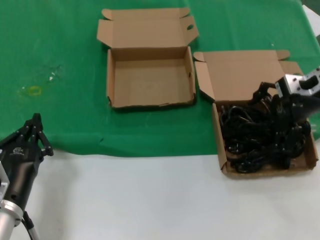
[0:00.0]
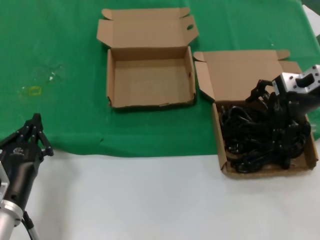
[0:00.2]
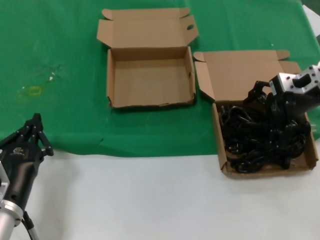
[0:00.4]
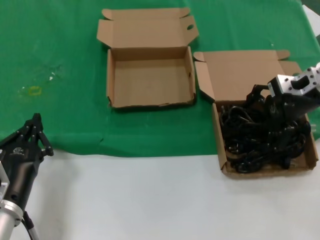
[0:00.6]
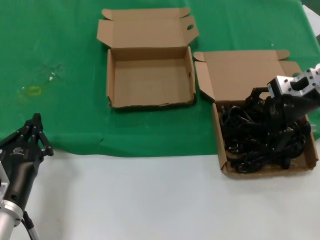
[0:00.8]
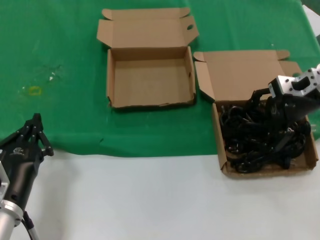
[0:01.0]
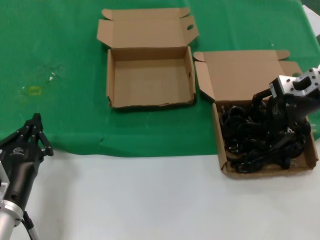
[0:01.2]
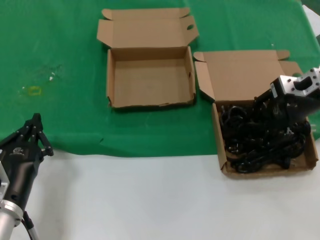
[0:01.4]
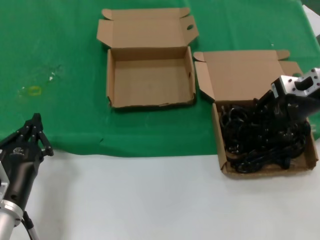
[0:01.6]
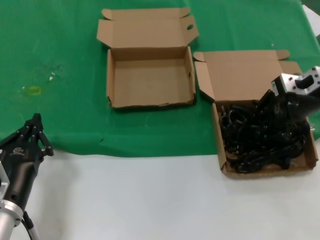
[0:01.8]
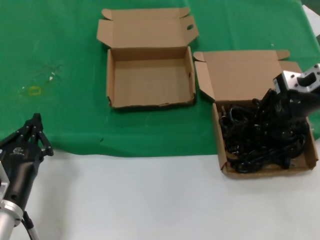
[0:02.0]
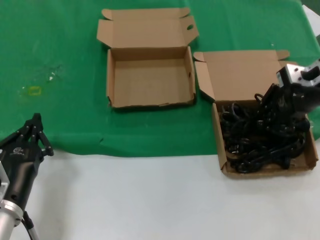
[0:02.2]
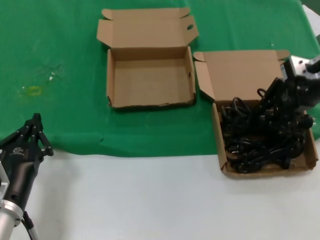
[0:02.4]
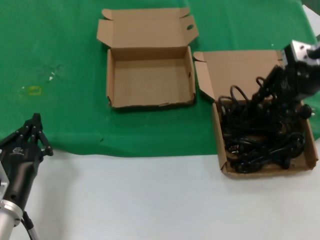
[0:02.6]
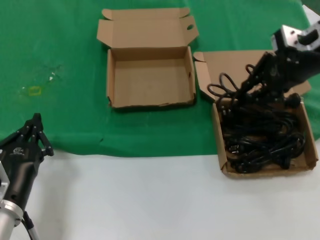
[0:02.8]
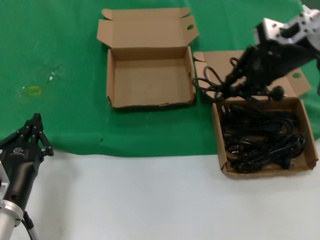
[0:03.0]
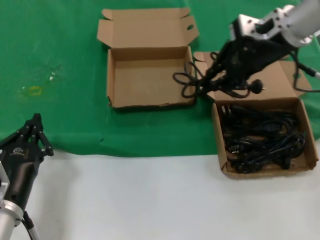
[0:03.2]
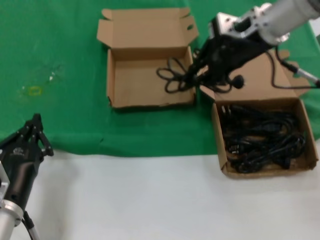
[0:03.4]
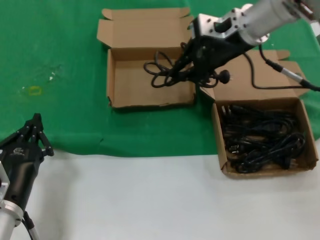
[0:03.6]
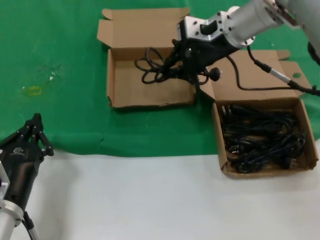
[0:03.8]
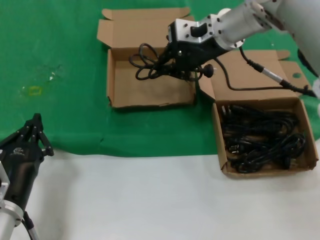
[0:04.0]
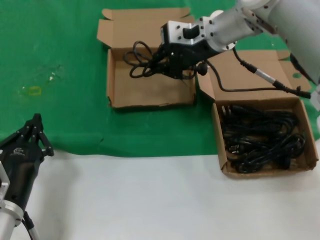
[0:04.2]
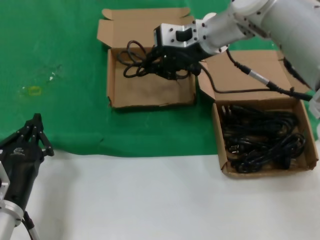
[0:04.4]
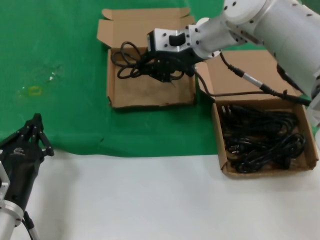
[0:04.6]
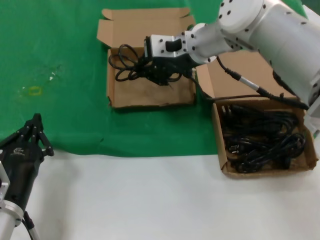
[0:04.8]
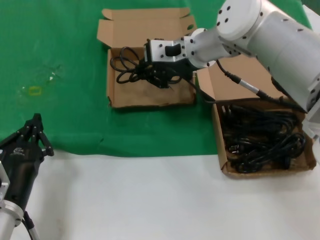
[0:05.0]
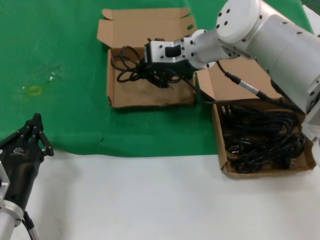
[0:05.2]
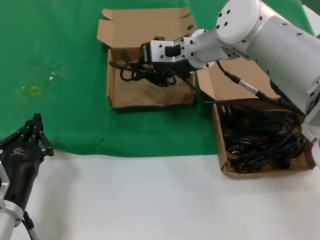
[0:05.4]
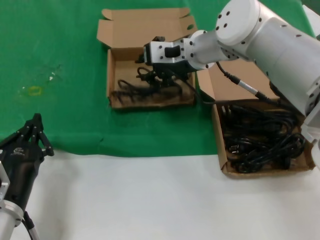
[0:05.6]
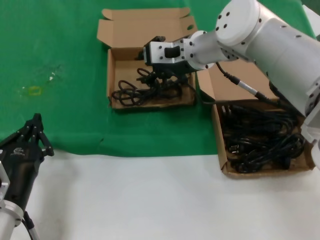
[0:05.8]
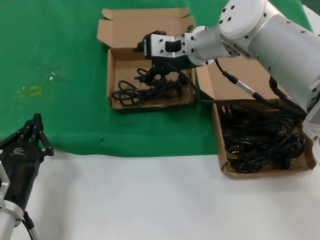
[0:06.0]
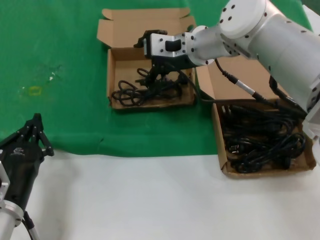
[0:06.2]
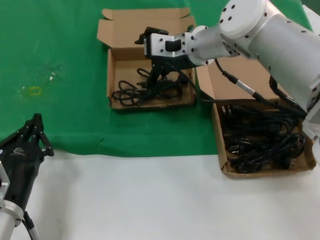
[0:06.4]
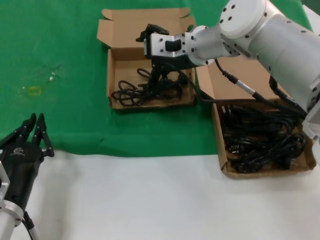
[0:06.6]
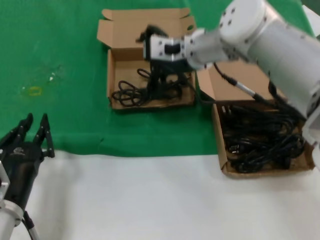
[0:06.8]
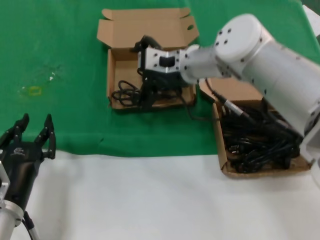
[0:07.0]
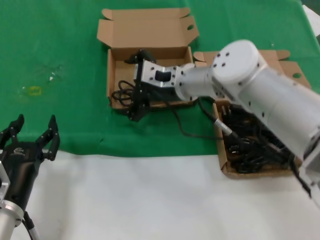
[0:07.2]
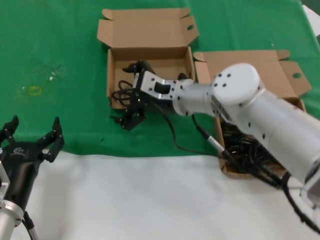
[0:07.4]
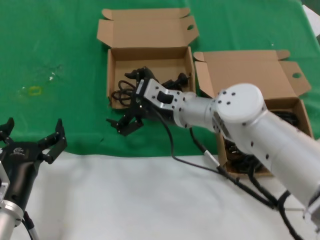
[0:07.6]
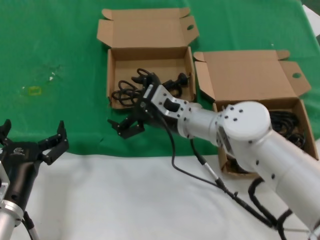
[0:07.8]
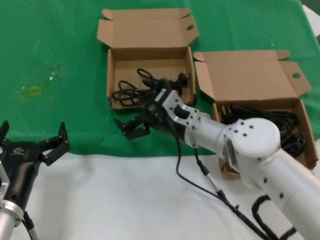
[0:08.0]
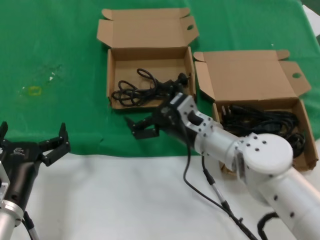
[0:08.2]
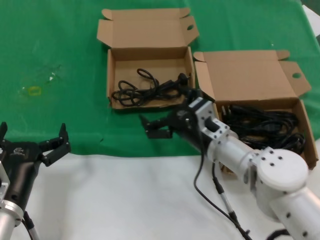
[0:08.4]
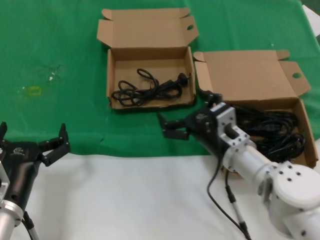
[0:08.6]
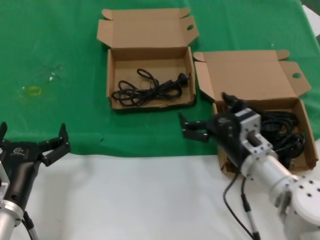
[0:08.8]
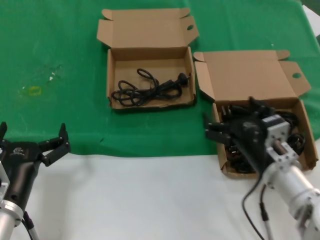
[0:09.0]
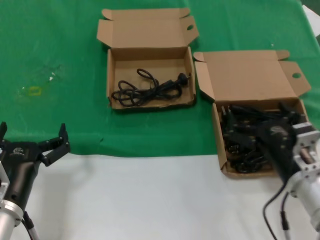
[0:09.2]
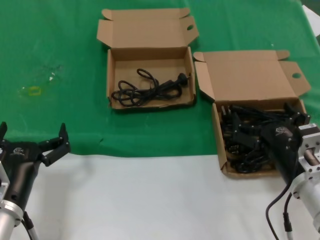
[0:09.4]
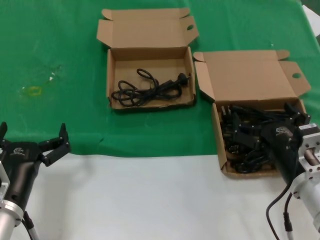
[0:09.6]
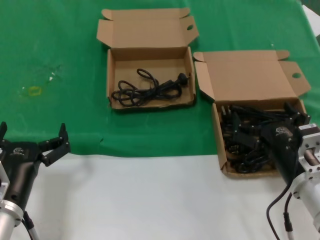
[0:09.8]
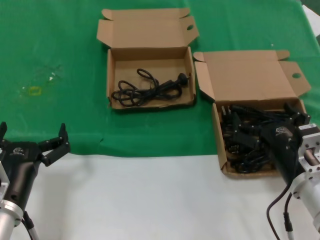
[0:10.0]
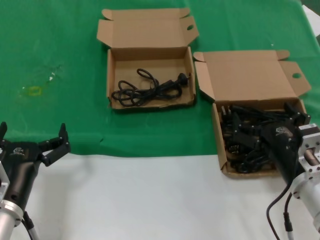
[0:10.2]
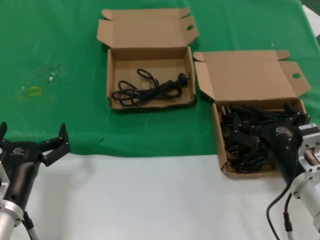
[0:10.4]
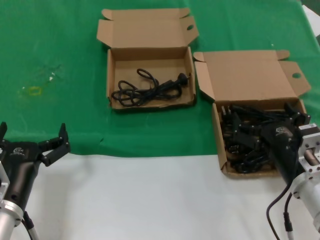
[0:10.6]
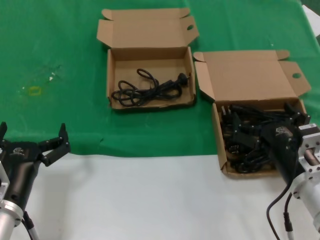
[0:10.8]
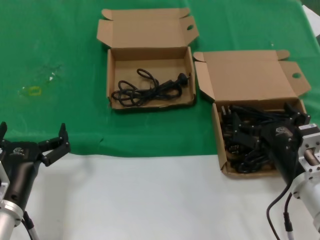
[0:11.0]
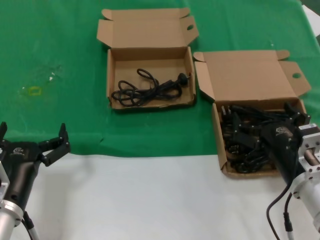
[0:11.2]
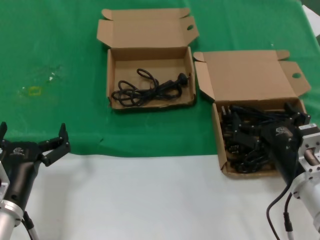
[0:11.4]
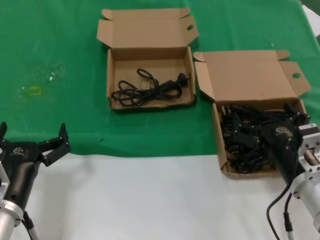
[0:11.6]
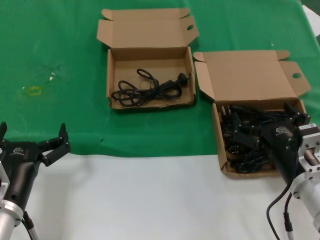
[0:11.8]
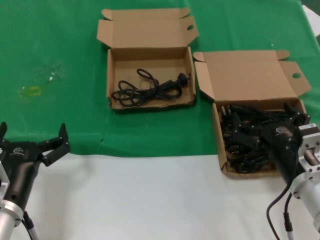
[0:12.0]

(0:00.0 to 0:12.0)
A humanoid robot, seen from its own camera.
Task of the whole recording: take the parts from the box containing them and put them into an empty box.
Step, 0:00.0 - 0:02.0: Grasp the data cable.
Step, 0:02.2 - 0:05.6: Place the data cable in the another box.
0:00.0 - 0:01.6: The hands make only small movements.
0:01.6 - 0:03.0: The right hand is displaced upward and to the left by approximately 10 cm.
0:03.0 - 0:04.4: The right hand is displaced to the left by approximately 15 cm.
0:04.4 - 0:06.0: The hands move only a little.
0:06.0 - 0:07.6: The right hand travels downward and backward by approximately 15 cm.
0:07.6 - 0:09.0: The right hand heads backward, to the right and downward, covering about 20 cm.
0:09.0 - 0:10.4: The right hand shifts by some 5 cm.
0:10.4 - 0:12.0: Neither hand changes place.

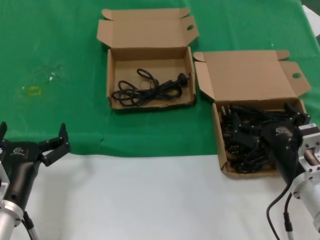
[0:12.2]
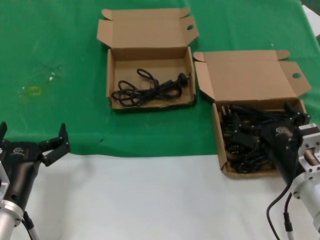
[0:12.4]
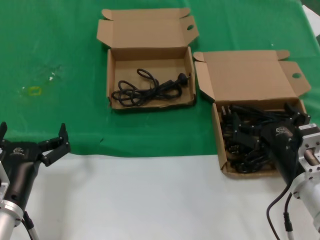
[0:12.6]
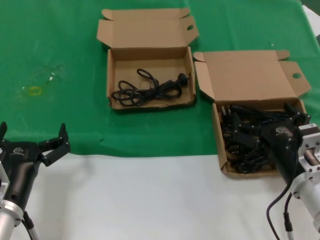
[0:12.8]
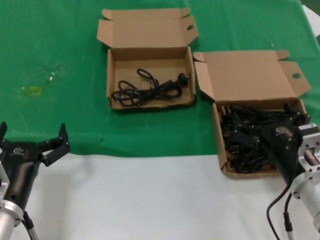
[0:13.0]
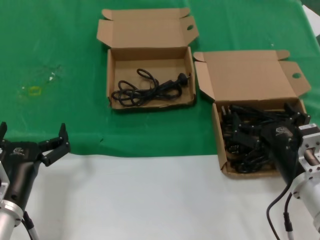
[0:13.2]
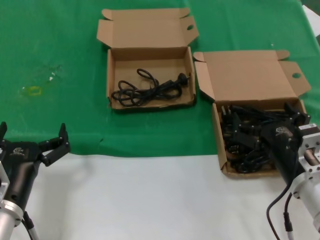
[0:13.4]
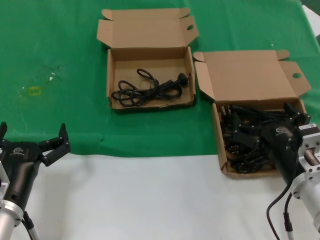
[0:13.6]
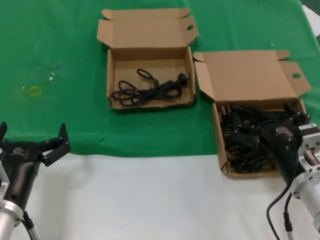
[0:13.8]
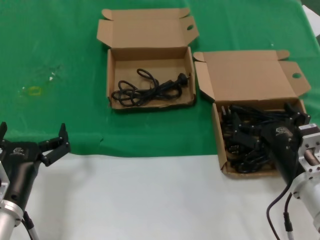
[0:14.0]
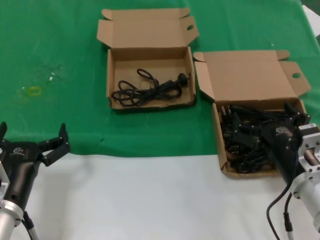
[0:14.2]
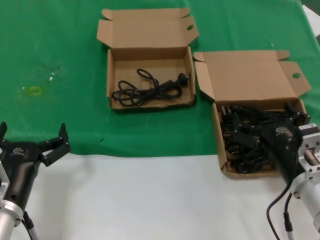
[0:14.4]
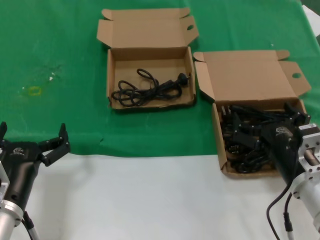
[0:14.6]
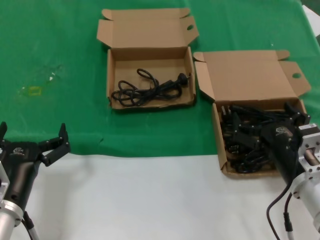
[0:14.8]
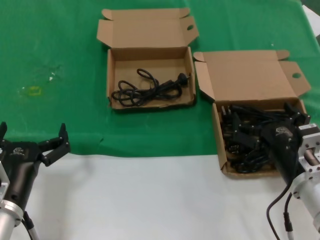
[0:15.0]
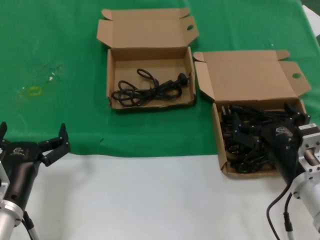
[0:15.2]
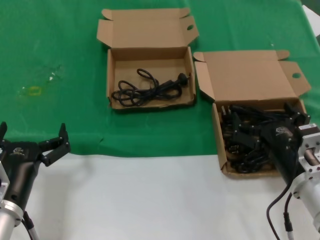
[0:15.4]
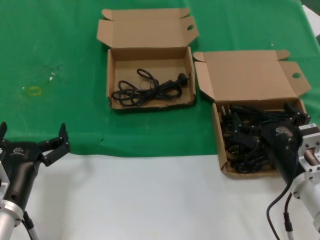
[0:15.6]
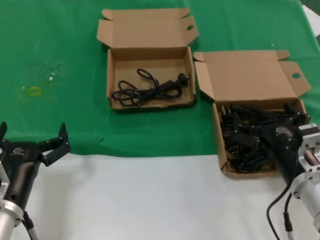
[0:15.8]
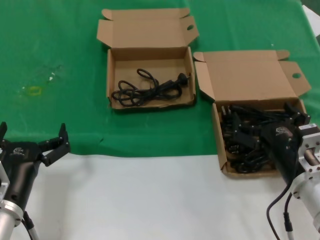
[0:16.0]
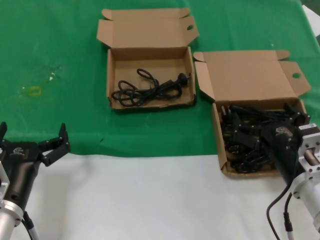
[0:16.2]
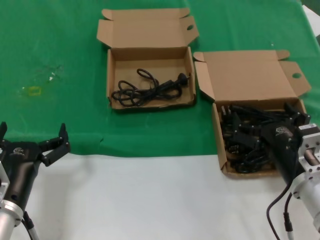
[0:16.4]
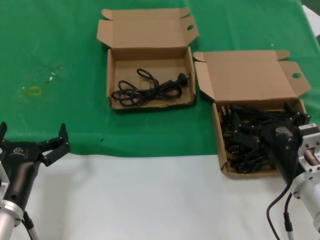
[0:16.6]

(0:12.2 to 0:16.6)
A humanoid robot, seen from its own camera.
Task of the whole recording: take the parts from the box containing them and put them into an empty box.
0:12.2 - 0:16.6: The two hands keep their place.
